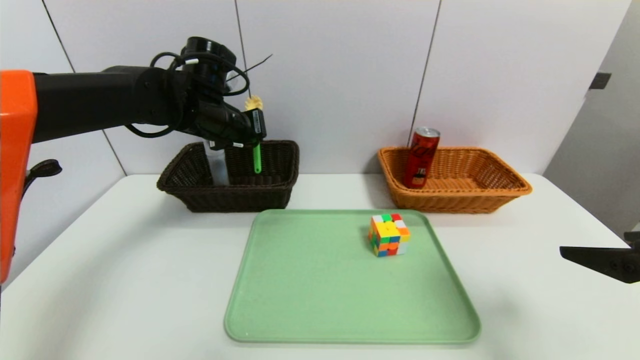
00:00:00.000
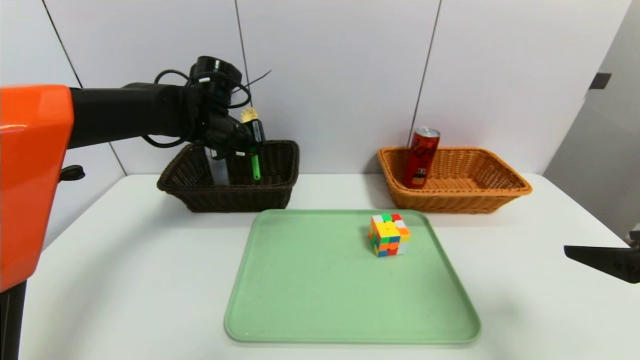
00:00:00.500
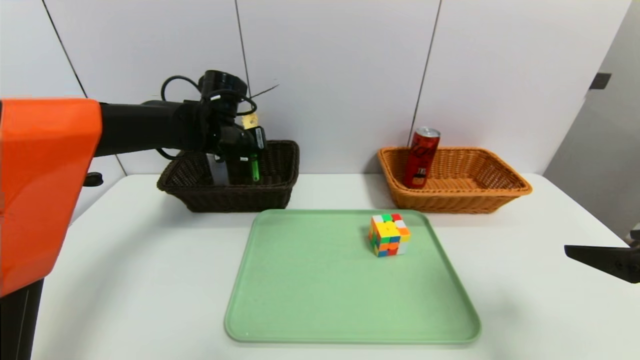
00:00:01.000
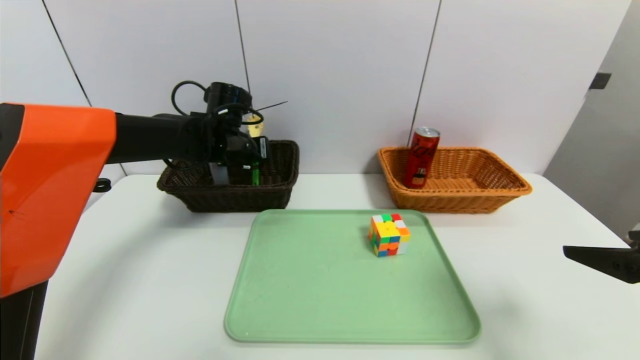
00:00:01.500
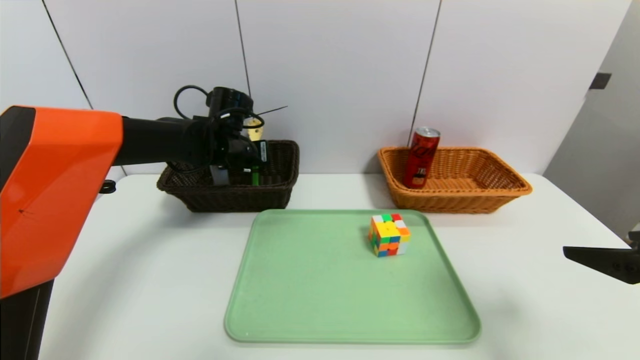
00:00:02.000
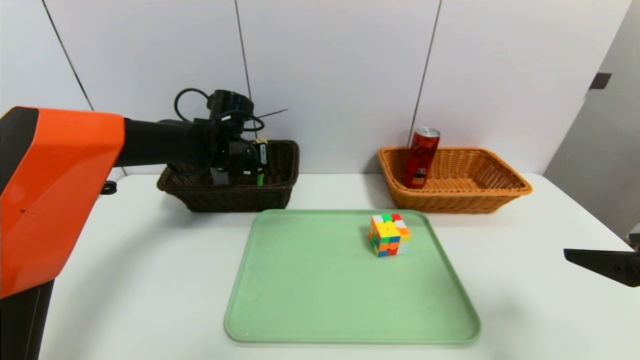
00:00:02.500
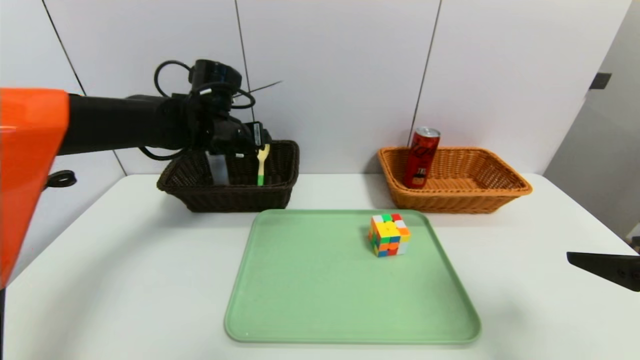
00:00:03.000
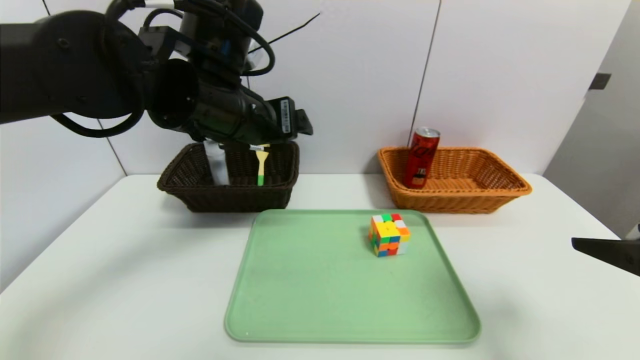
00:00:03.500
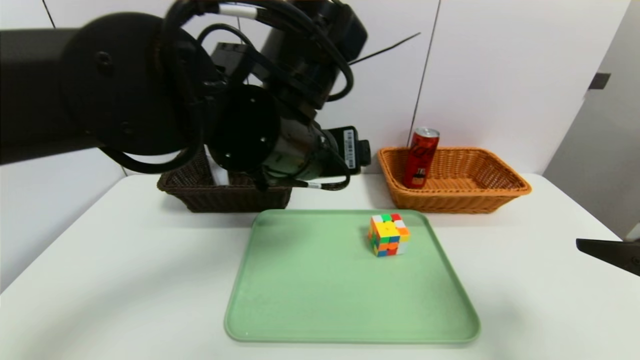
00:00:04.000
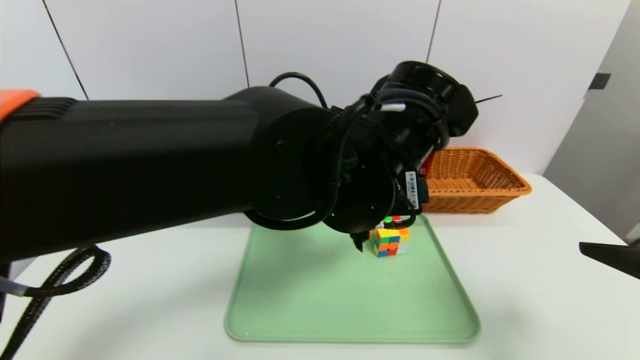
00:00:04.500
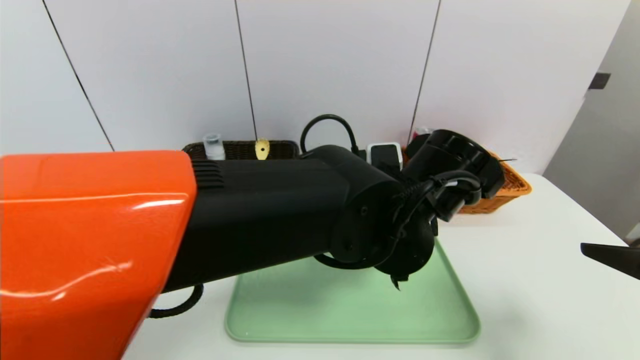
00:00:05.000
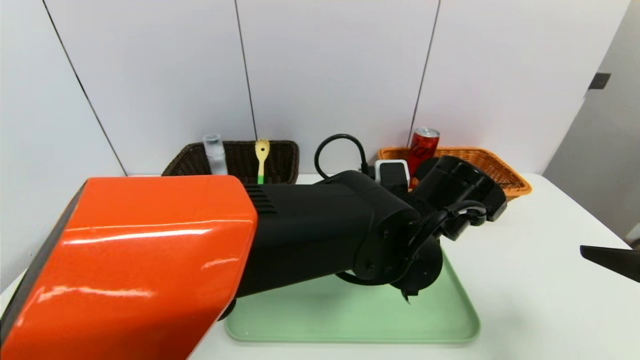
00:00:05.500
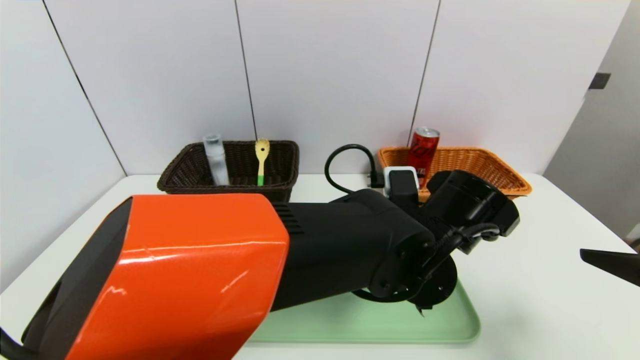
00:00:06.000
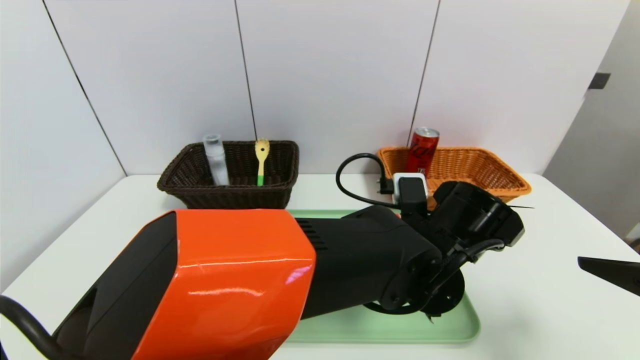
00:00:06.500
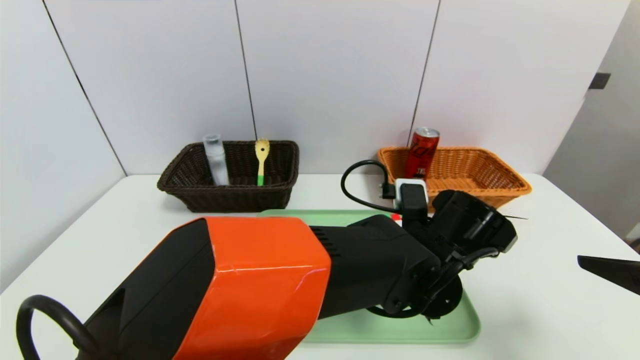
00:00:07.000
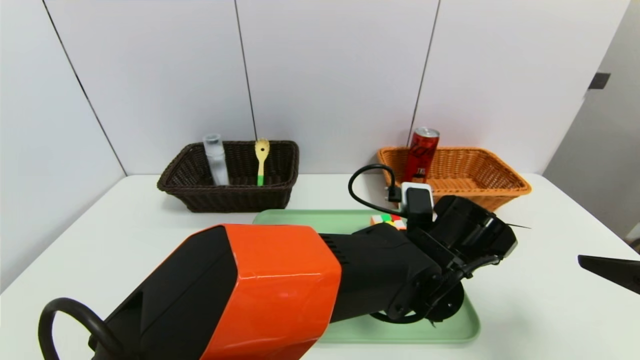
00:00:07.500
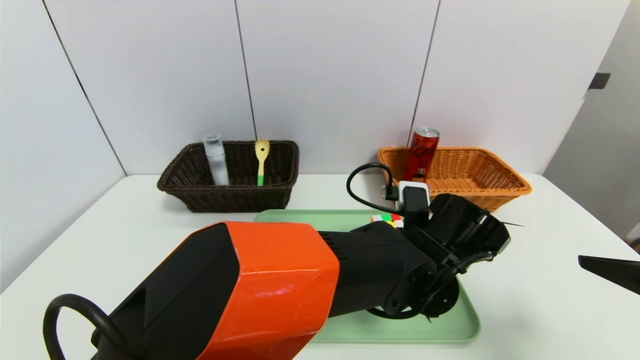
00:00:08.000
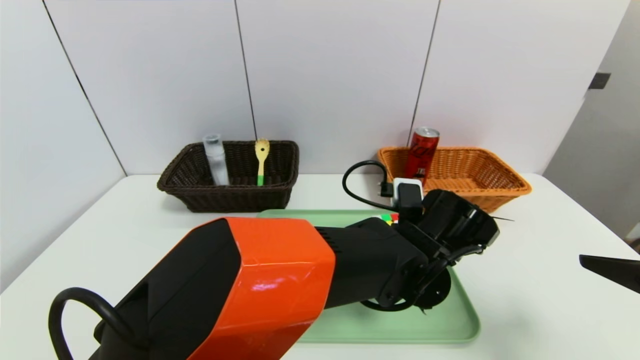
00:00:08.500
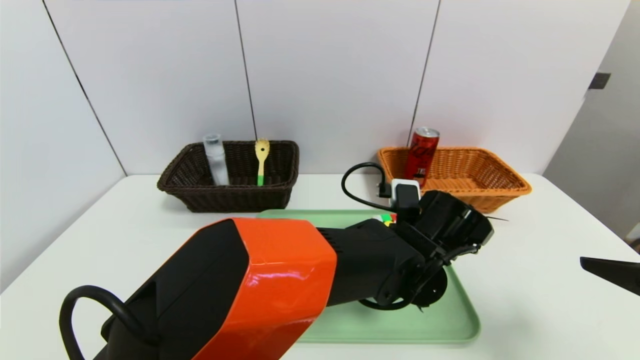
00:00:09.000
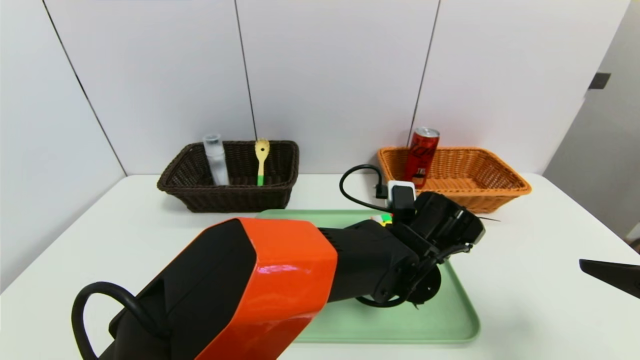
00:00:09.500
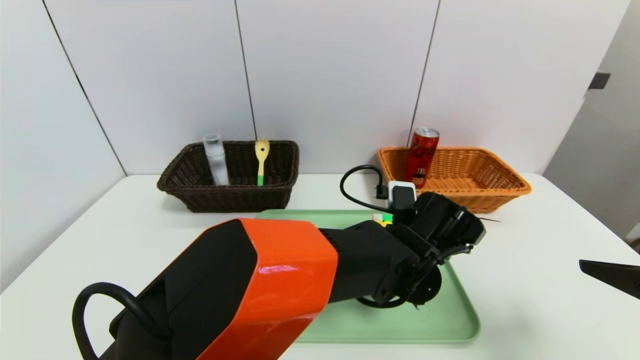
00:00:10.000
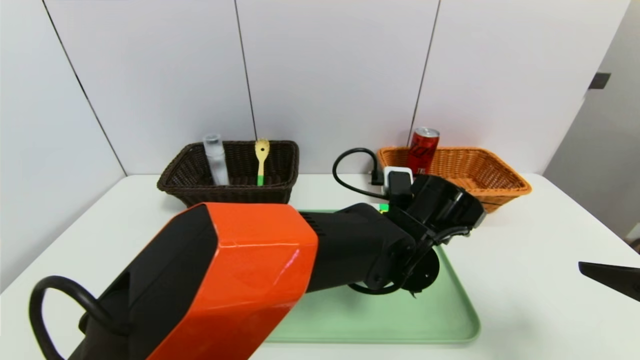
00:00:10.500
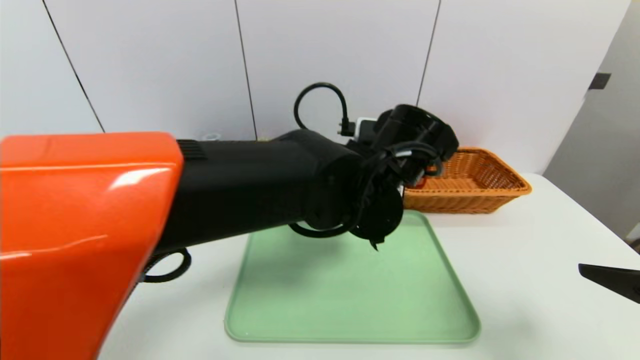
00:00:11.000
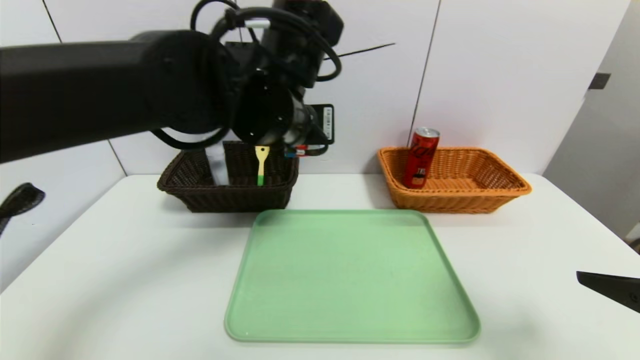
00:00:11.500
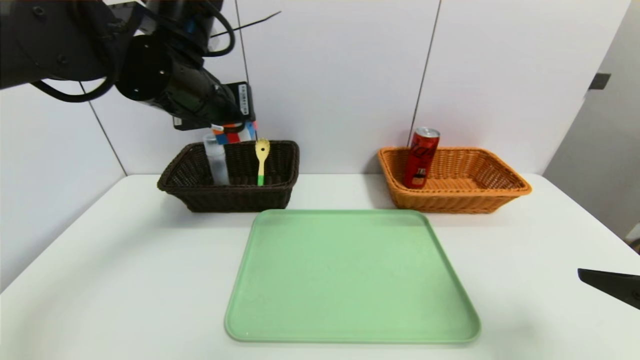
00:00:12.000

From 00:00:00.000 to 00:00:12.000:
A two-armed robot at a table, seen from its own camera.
Task of the whole recording: place the food in the right basket with the right gripper, and place the non food items in the left basket with the left gripper.
Step, from 00:00:00.000 to 00:00:03.000: Grasp the back scratcher and put it in the left basket.
From 00:00:00.000 to 00:00:02.000: The left gripper travels downward by roughly 5 cm.
From 00:00:02.000 to 00:00:04.000: The left gripper moves backward, to the right and upward, approximately 25 cm, and opens up.
From 00:00:04.000 to 00:00:06.000: The left gripper moves to the right and downward, about 20 cm.
From 00:00:08.000 to 00:00:10.000: The left gripper closes.
From 00:00:10.000 to 00:00:12.000: The left gripper heads to the left and upward, covering about 35 cm.

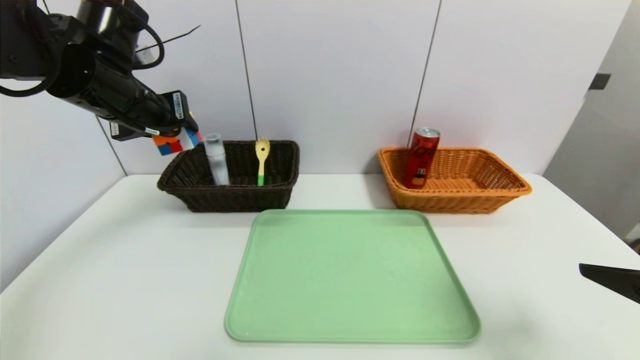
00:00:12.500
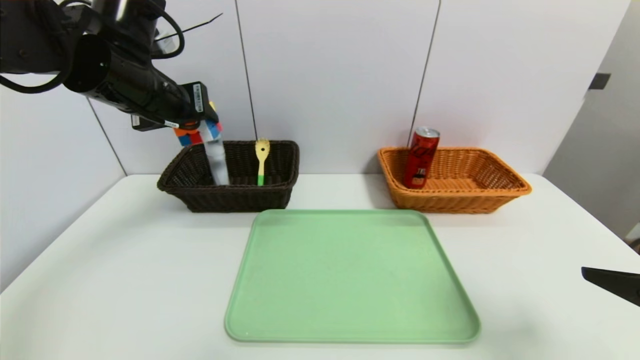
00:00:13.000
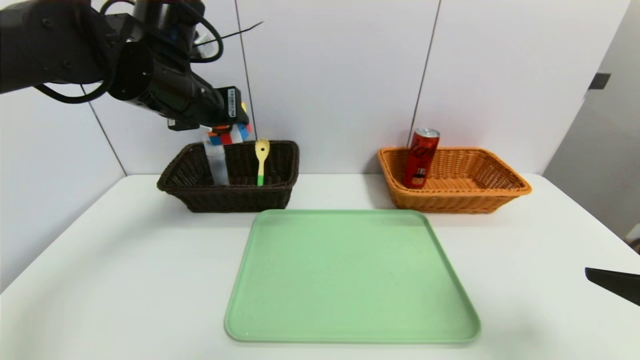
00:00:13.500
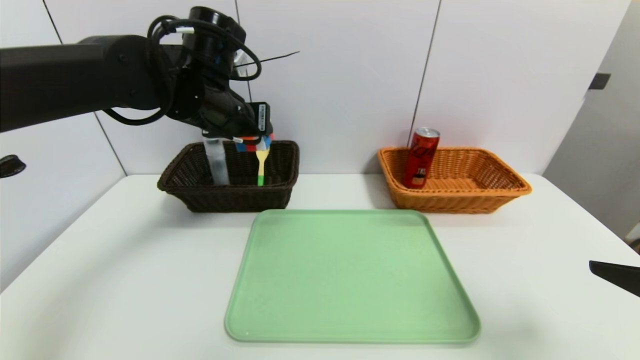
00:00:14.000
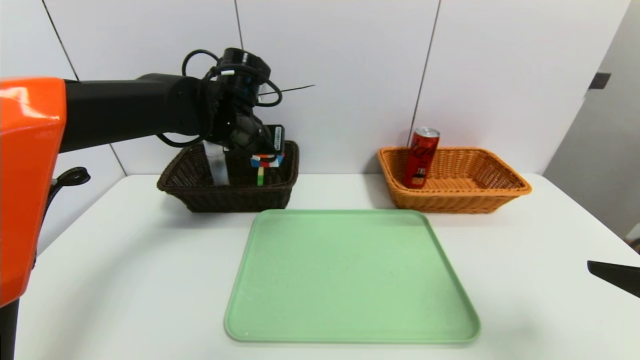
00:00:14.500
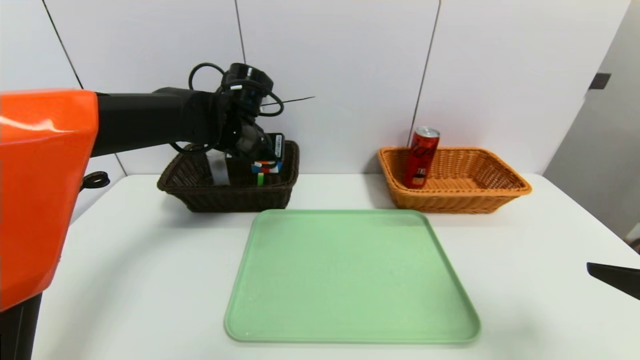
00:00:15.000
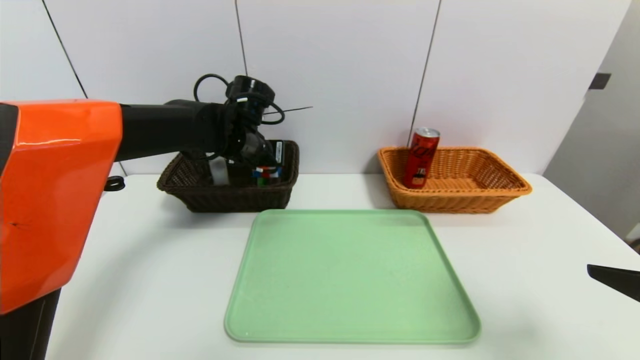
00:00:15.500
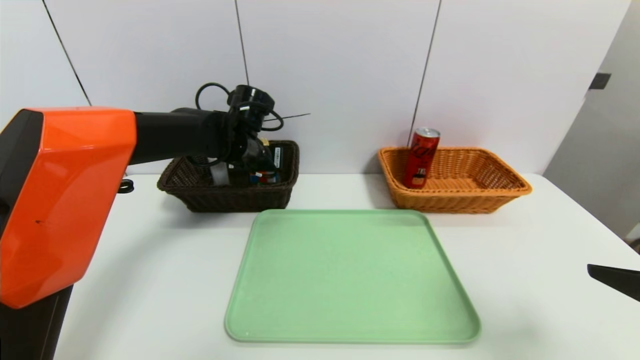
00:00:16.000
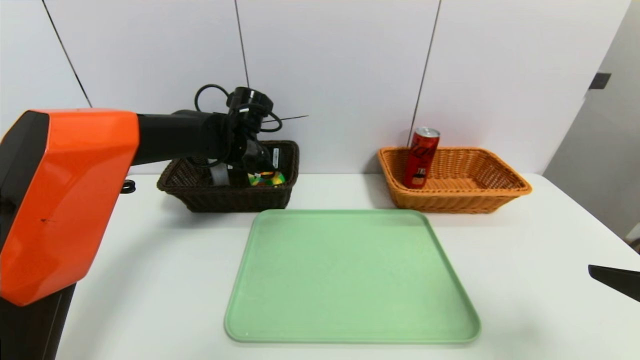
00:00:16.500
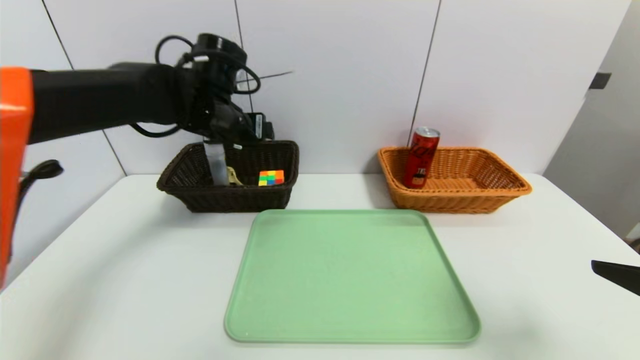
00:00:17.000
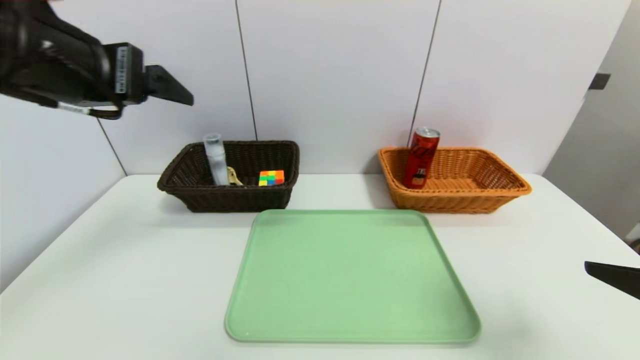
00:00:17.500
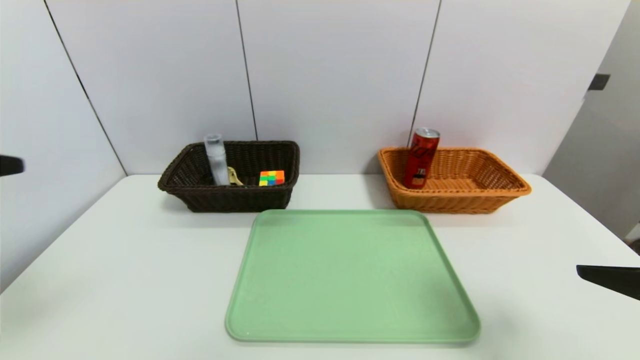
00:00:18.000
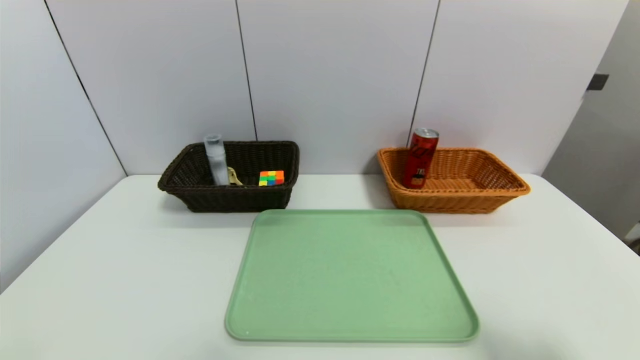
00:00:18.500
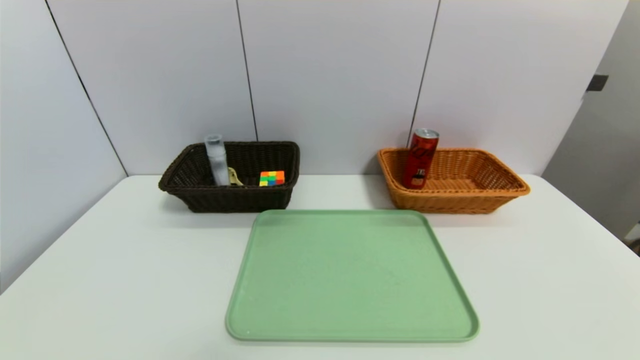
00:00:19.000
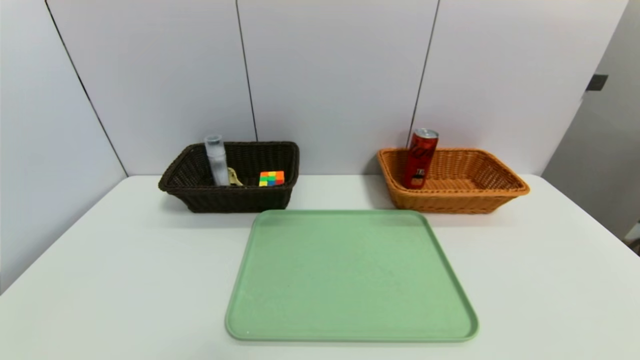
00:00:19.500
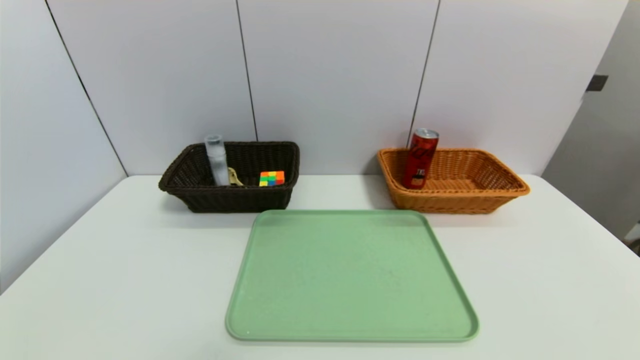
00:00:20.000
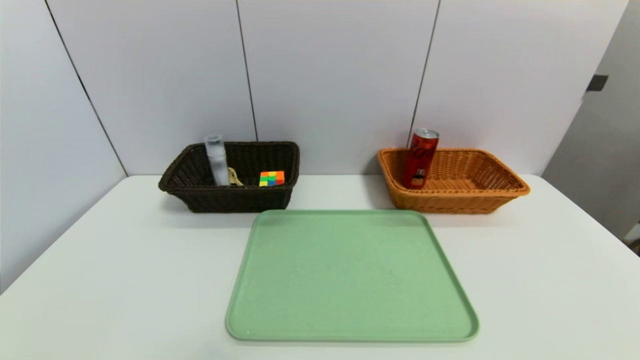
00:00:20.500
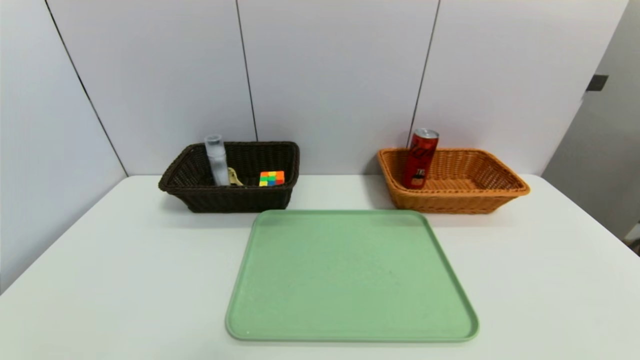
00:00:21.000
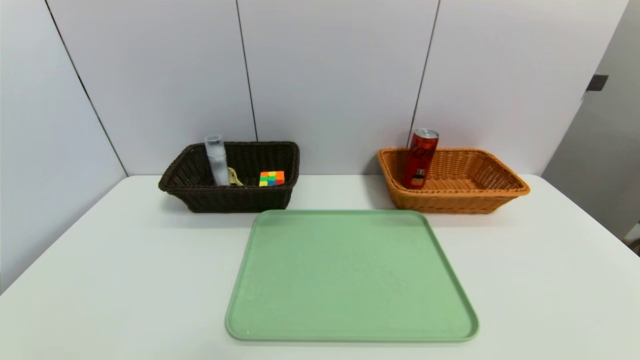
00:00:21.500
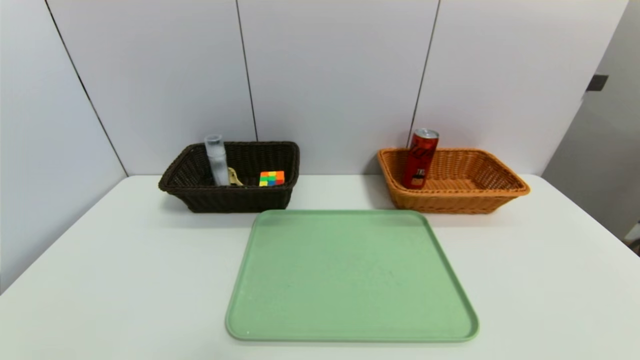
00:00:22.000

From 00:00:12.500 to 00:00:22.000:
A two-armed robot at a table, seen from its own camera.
Task of the whole recording: place the food in the right basket with the right gripper, and place the non food items in the left basket with the left gripper.
Step, from 00:00:12.500 to 00:00:16.500: Grasp the rubiks cube and put it in the left basket.
From 00:00:12.500 to 00:00:14.500: The left gripper goes roughly 15 cm to the right, downward and forward.
From 00:00:14.500 to 00:00:16.500: The left gripper shifts roughly 5 cm downward.
From 00:00:16.500 to 00:00:18.000: The left gripper shifts approximately 40 cm backward, to the left and upward.
From 00:00:18.000 to 00:00:20.000: The right gripper travels backward and downward by approximately 20 cm, while the left gripper heads downward and backward, covering some 20 cm.
